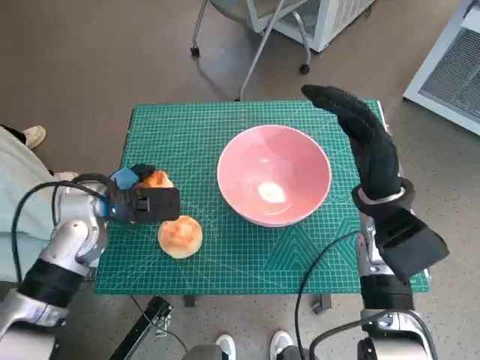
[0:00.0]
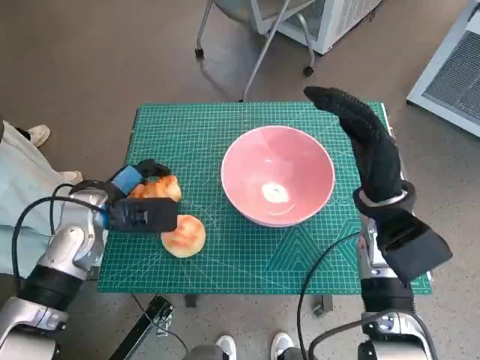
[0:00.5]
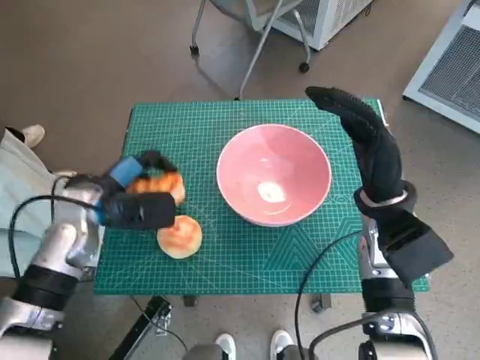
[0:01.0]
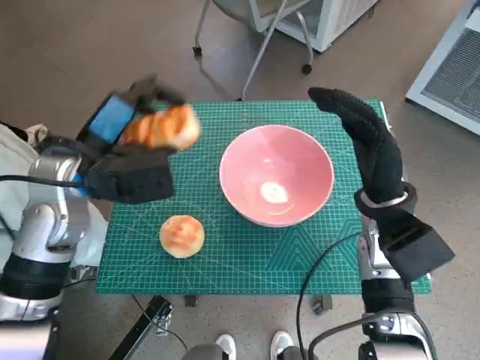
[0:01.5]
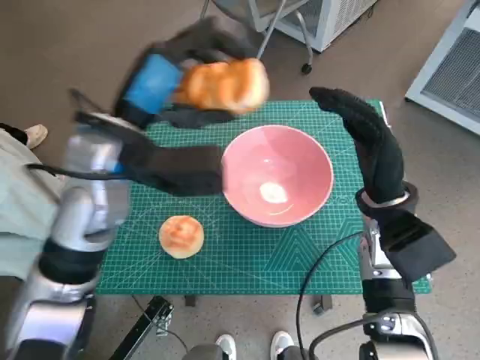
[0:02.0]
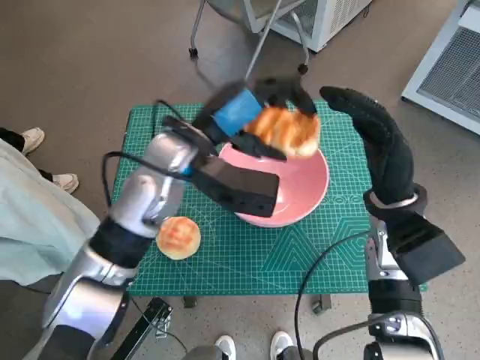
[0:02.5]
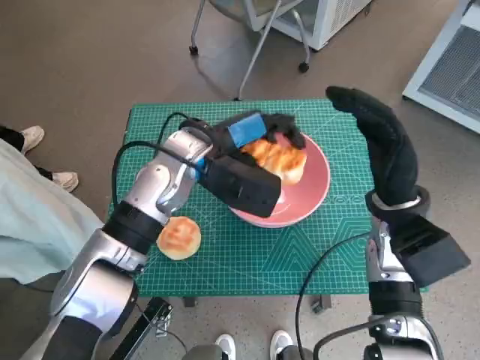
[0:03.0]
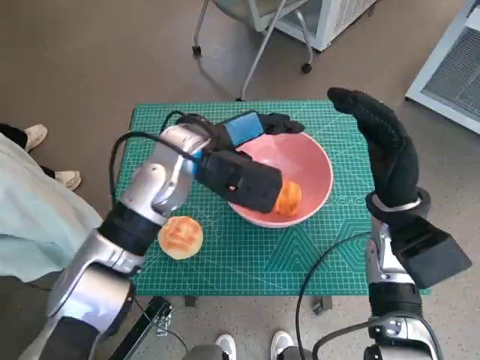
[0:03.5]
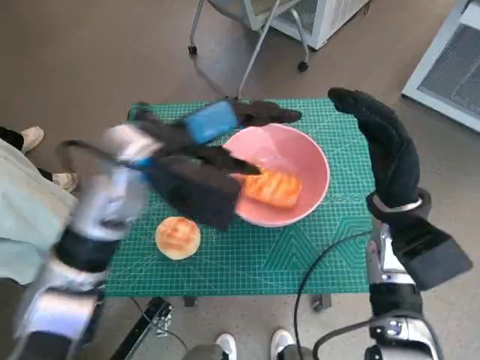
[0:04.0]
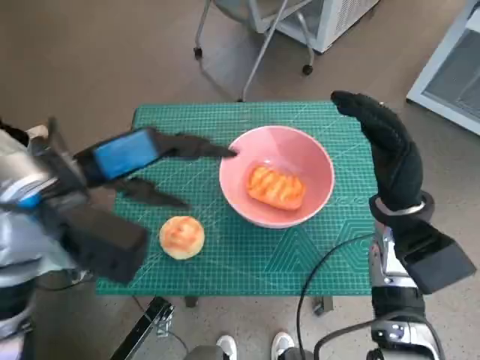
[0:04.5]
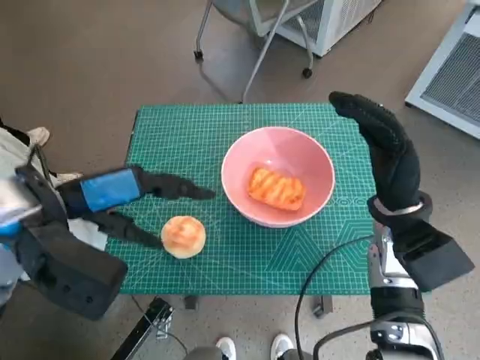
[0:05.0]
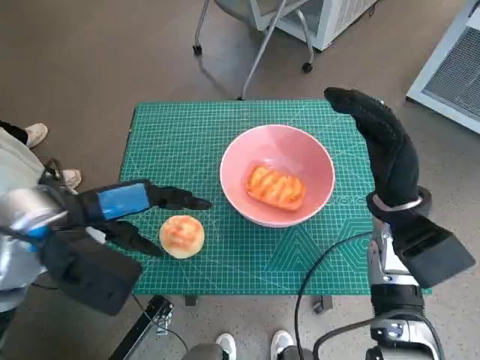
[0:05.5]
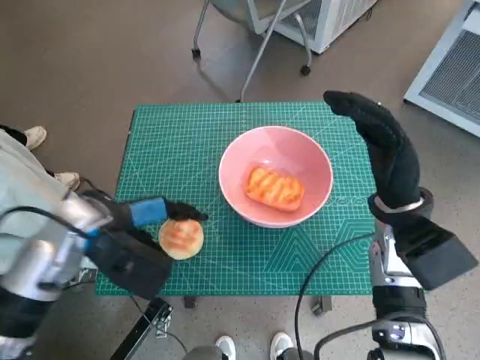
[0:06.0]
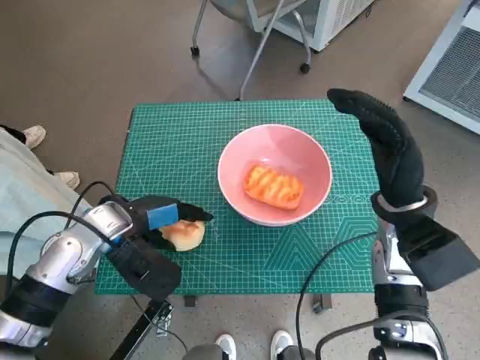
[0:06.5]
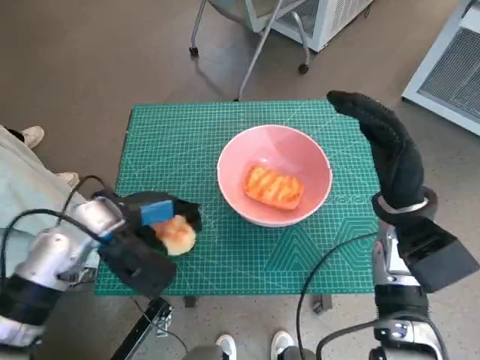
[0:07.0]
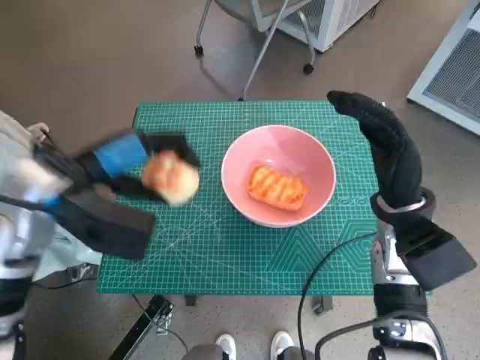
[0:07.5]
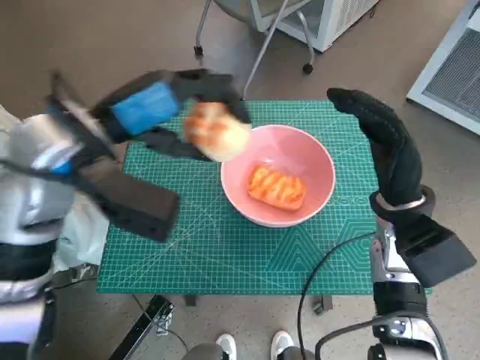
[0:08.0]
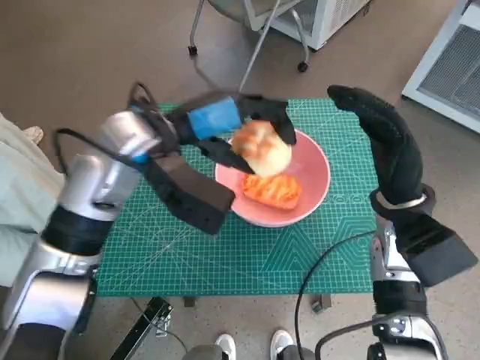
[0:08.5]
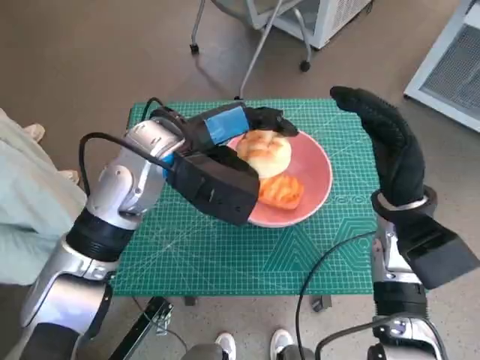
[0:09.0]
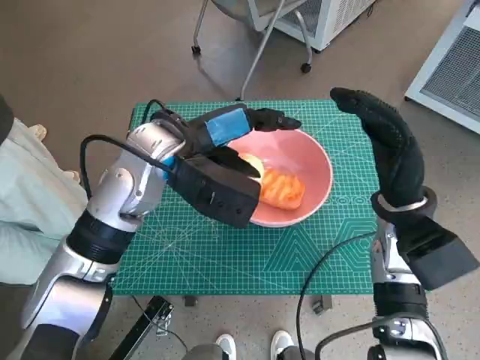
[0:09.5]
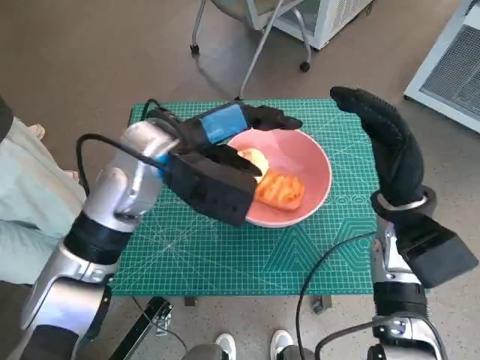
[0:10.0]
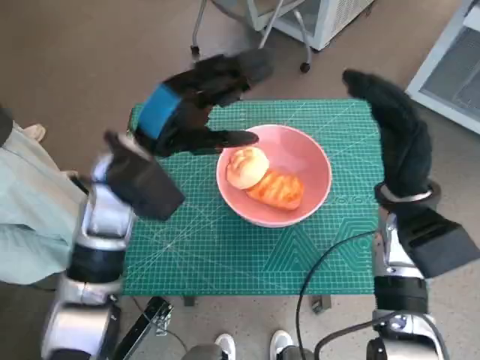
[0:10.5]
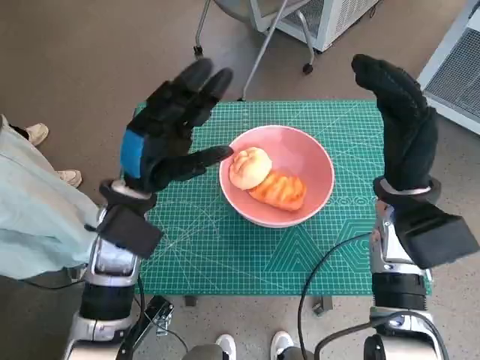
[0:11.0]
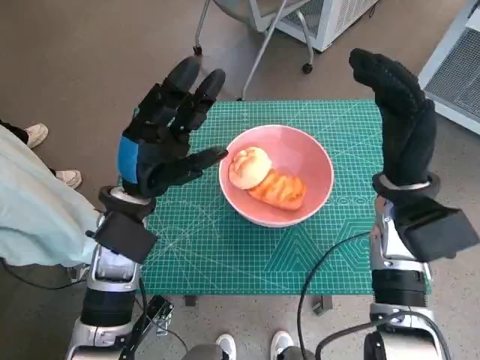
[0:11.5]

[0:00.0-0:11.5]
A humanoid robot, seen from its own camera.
Task of the whole recording: Push the bowl to the center of the table and put the bread into the bowl.
Step, 0:00.5 to 0:04.0: Place the long bread in pink bowl with left hand.
Step, 0:04.5 to 0:06.5: Grasp the round bread with left hand.
Step, 0:07.0 to 0:10.0: Place the round bread in pink bowl with left hand.
0:00.0 to 0:02.0: The left hand shifts some 15 cm upward and to the right.
0:04.0 to 0:06.0: The left hand shifts roughly 10 cm to the left, downward and backward.
0:06.0 to 0:07.5: The left hand moves upward, about 5 cm.
0:07.5 to 0:09.5: The left hand shifts some 10 cm to the right and forward.
0:09.5 to 0:11.5: The left hand is displaced downward and to the left by roughly 10 cm.

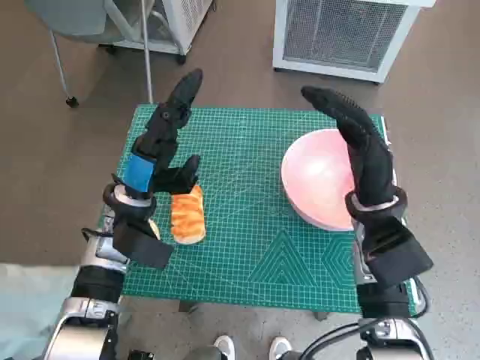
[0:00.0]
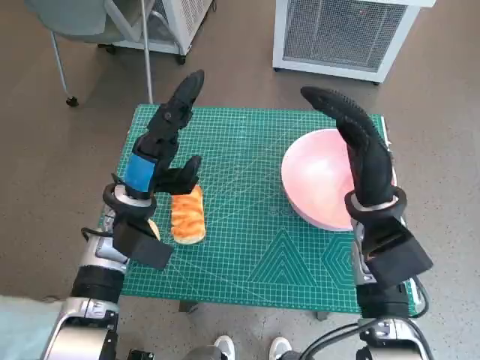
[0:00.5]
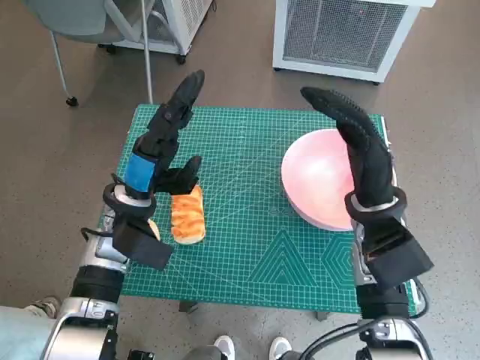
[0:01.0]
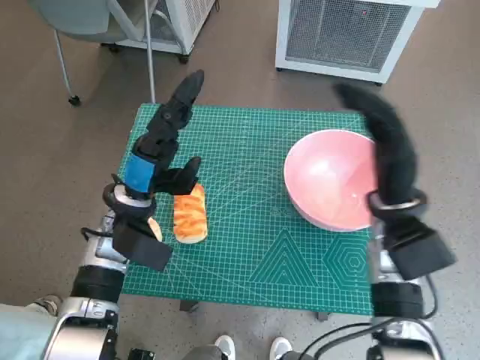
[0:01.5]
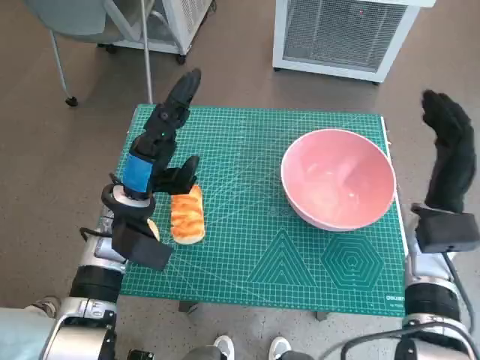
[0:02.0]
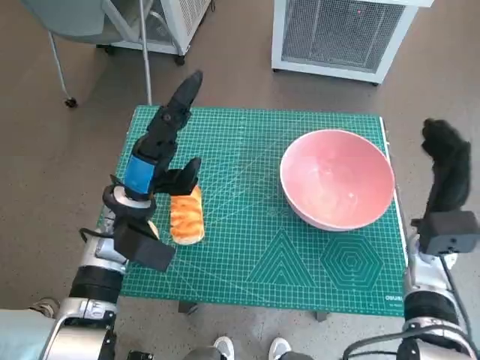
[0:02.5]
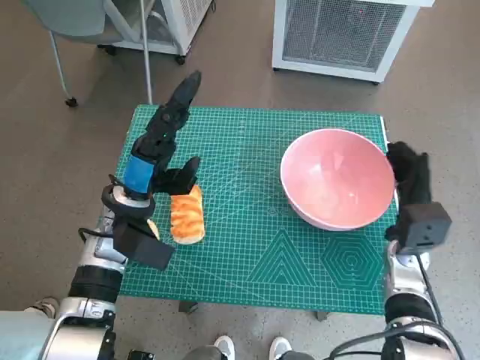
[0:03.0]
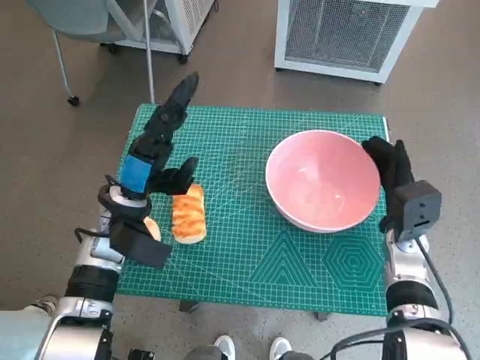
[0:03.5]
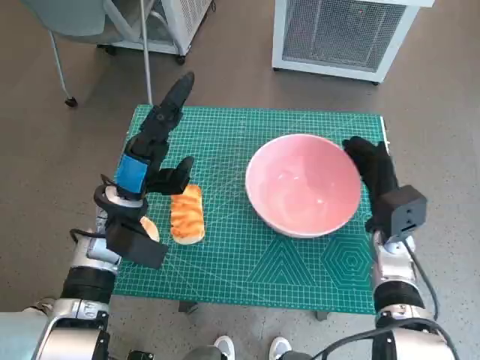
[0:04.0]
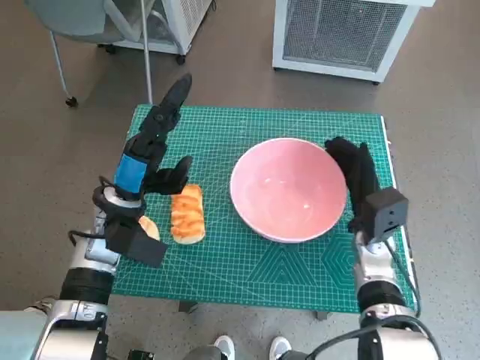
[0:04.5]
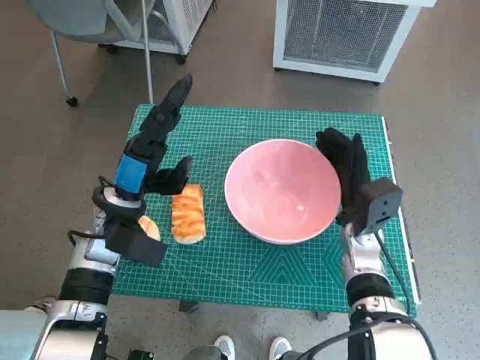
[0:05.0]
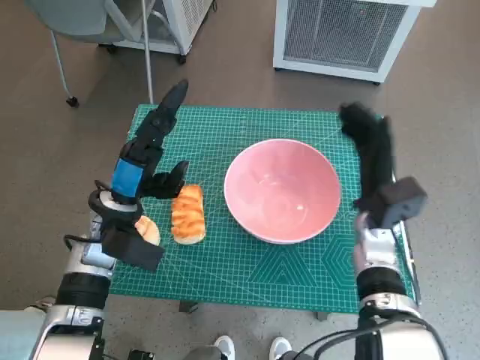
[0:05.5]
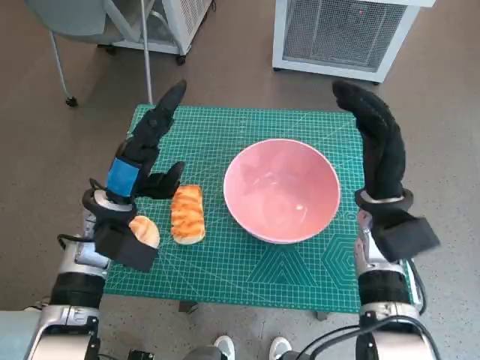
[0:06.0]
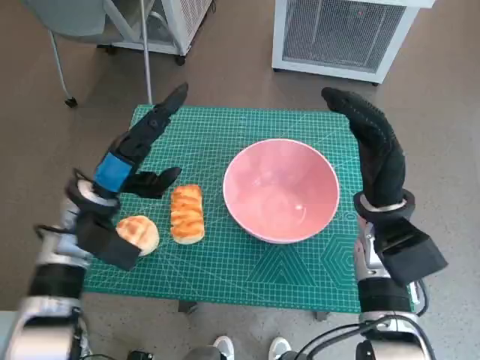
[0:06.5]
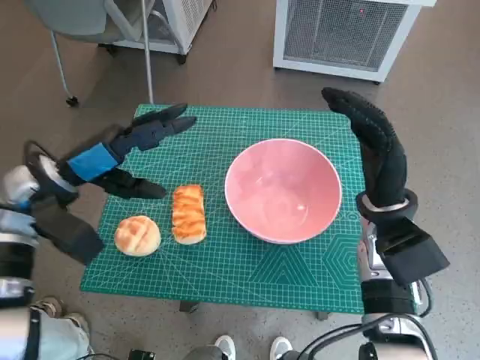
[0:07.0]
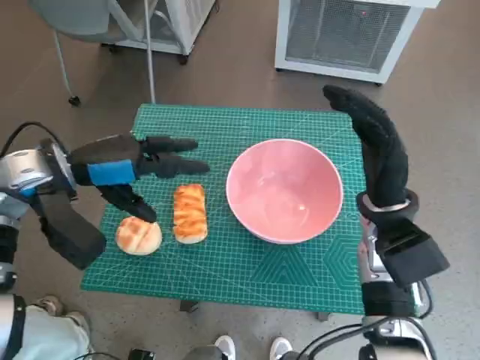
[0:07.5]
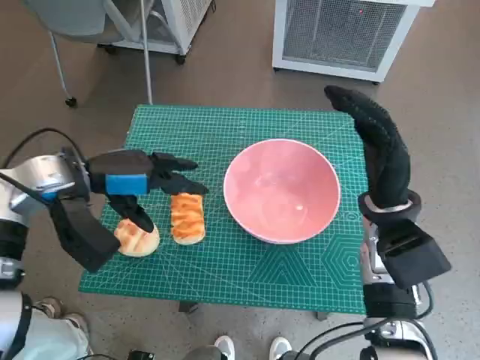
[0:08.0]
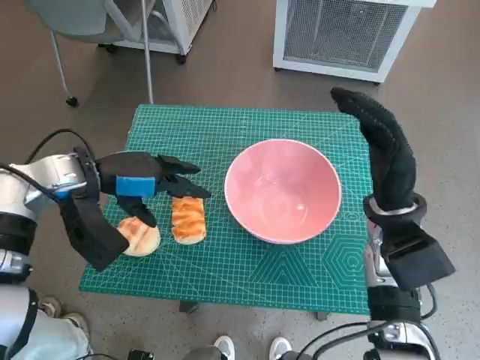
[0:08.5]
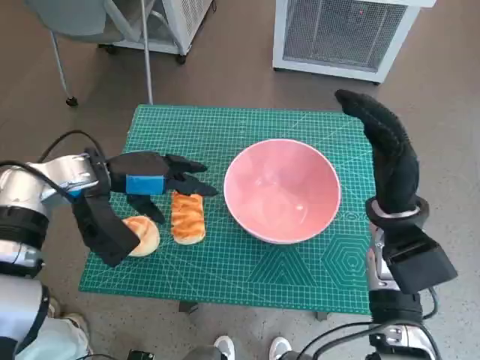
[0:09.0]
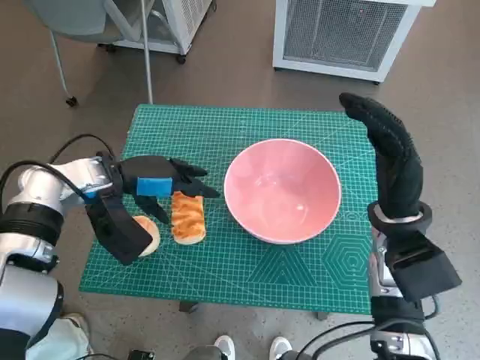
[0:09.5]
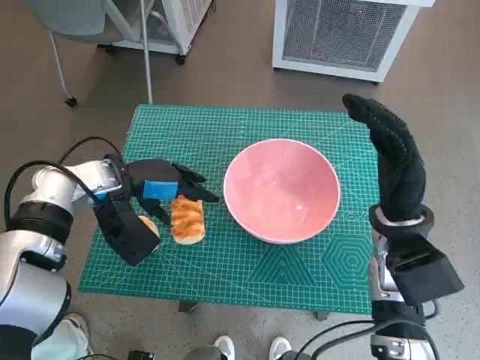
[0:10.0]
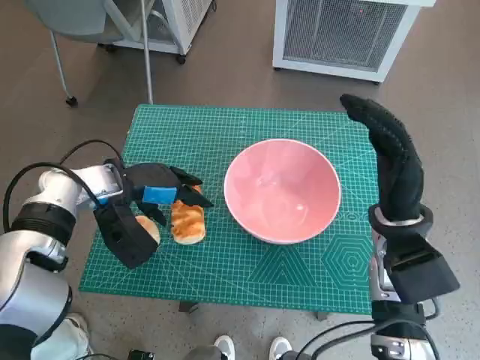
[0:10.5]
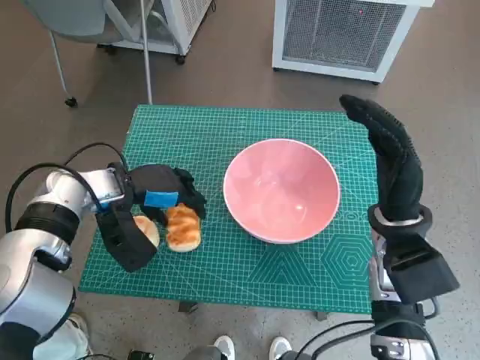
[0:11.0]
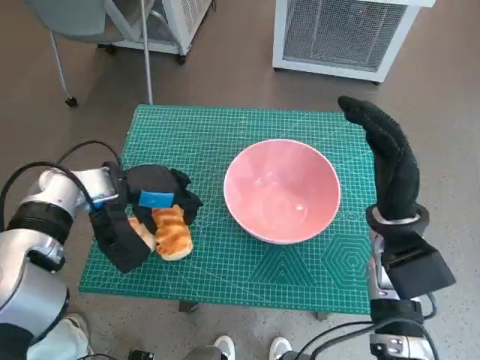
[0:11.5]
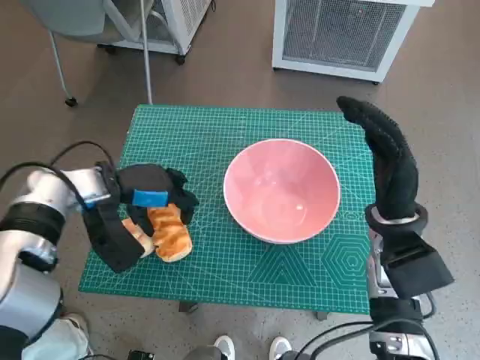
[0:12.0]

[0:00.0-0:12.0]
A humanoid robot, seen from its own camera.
Task of the whole recording: Push the bowl to the center of the table and put the bread into the bowl.
Step, 0:00.0 to 0:05.0: Move the pink bowl to the center of table with right hand.
Step, 0:05.5 to 0:11.5: Grasp the long bread with left hand.
0:02.0 to 0:04.0: The right hand goes approximately 5 cm downward.
0:04.0 to 0:06.0: The right hand goes approximately 5 cm upward.
0:06.0 to 0:08.0: The left hand goes about 5 cm upward.
0:08.0 to 0:10.0: The left hand shifts by about 5 cm.
0:10.0 to 0:12.0: The hands stay close to where they were, moving slightly.

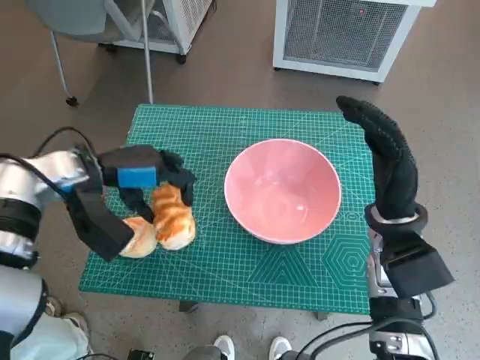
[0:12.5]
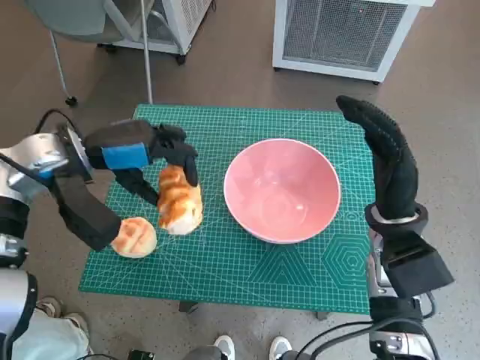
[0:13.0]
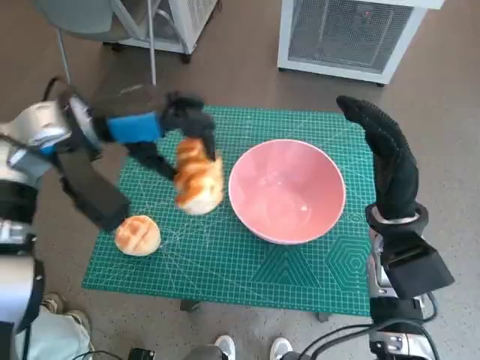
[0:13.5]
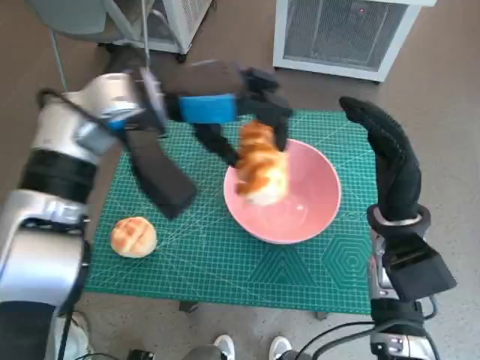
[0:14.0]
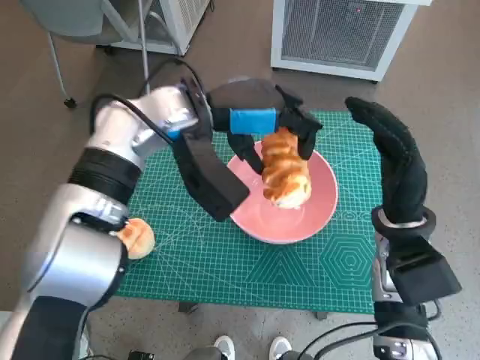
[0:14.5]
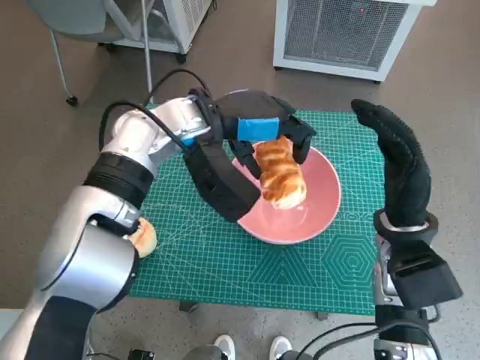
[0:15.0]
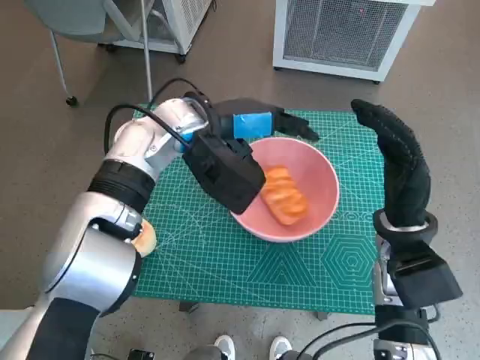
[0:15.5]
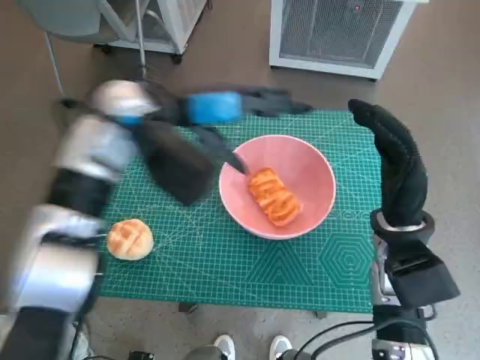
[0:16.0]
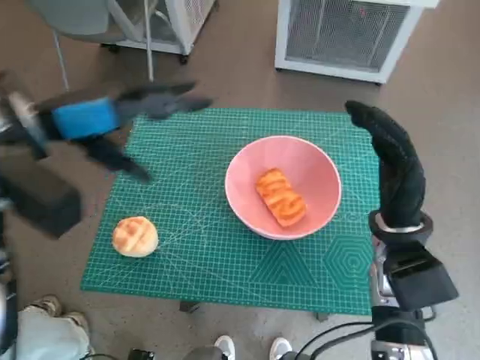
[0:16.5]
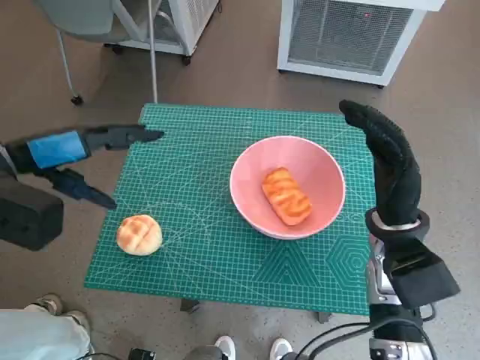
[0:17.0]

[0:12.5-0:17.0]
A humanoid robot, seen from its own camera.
Task of the whole recording: Push the bowl to the center of the table and put the bread into the bowl.
Step, 0:12.5 to 0:15.5: Place the long bread in pink bowl with left hand.
0:12.5 to 0:14.5: The left hand moves to the right and upward, approximately 15 cm.
0:14.5 to 0:17.0: The left hand is displaced to the left by some 20 cm.
